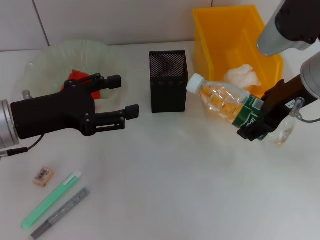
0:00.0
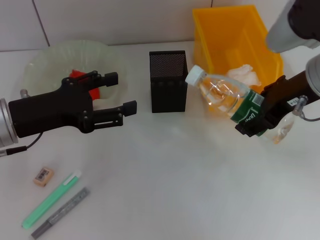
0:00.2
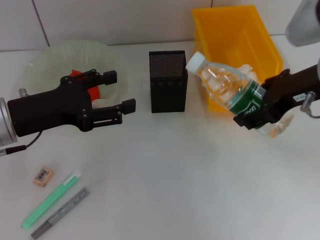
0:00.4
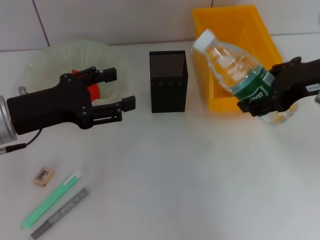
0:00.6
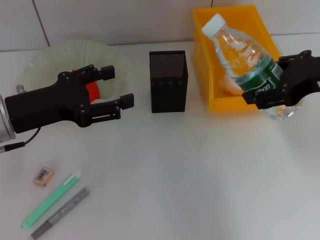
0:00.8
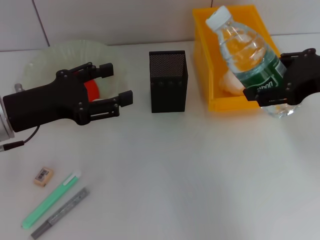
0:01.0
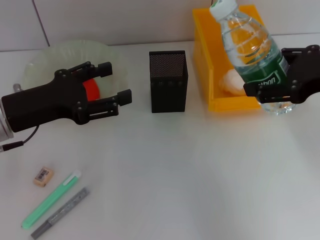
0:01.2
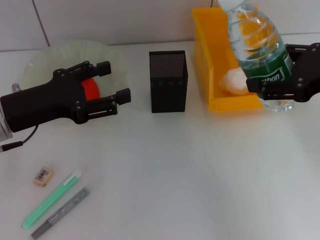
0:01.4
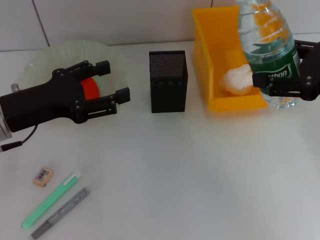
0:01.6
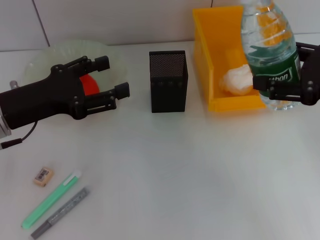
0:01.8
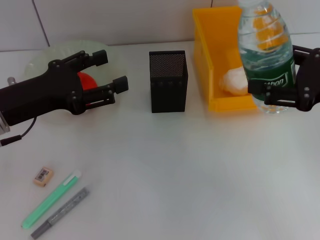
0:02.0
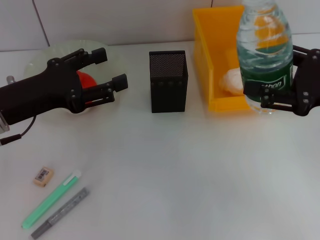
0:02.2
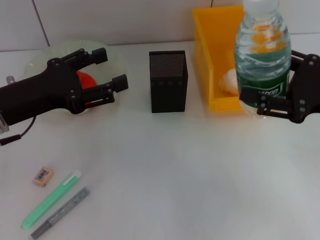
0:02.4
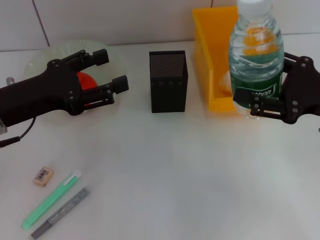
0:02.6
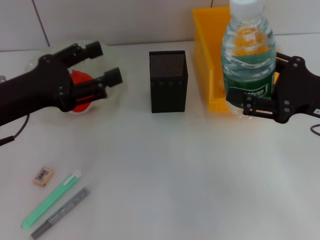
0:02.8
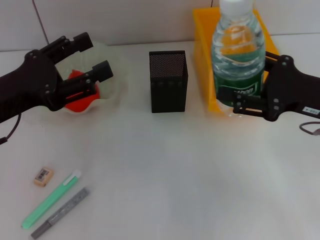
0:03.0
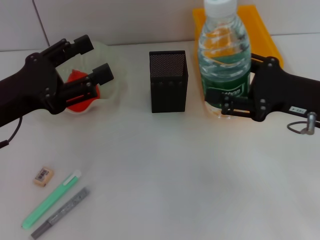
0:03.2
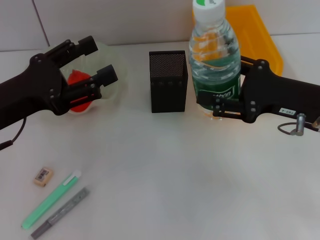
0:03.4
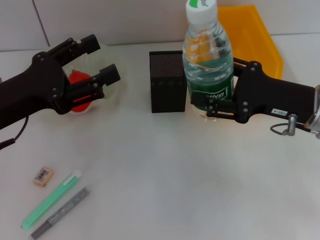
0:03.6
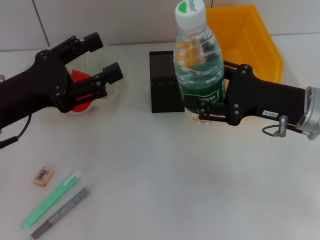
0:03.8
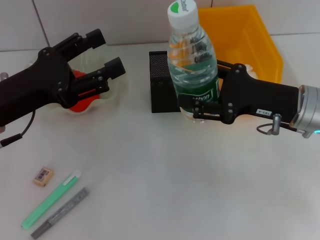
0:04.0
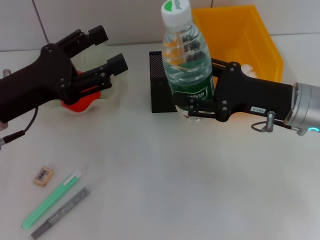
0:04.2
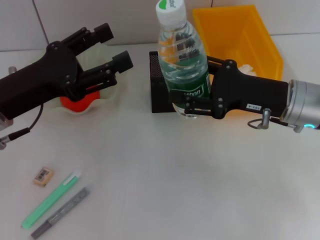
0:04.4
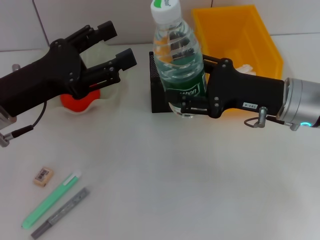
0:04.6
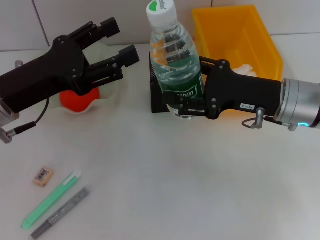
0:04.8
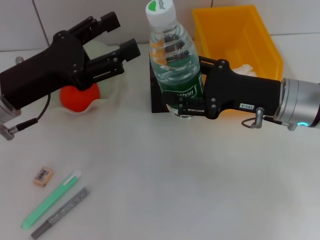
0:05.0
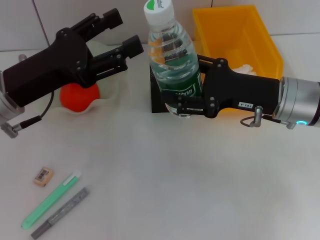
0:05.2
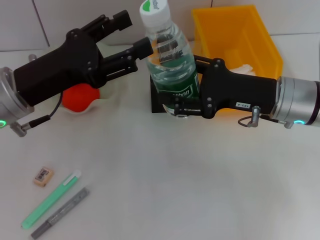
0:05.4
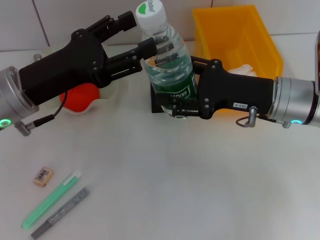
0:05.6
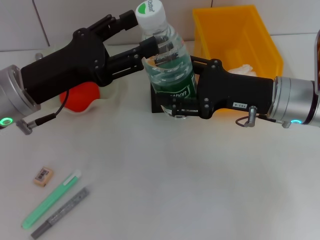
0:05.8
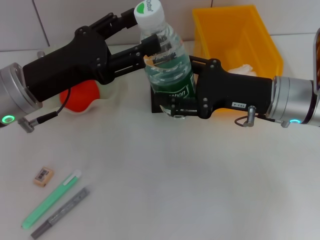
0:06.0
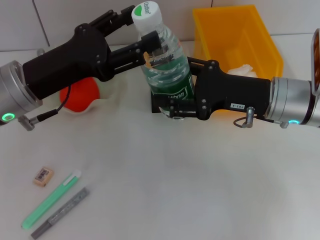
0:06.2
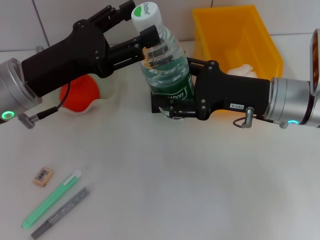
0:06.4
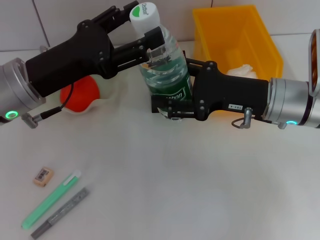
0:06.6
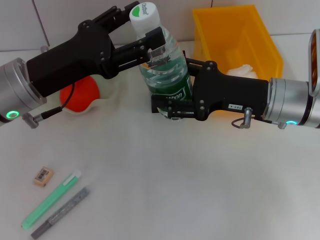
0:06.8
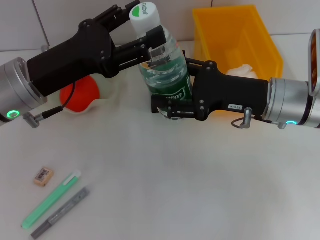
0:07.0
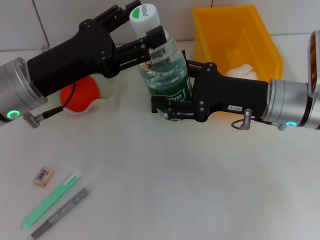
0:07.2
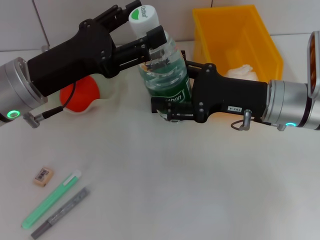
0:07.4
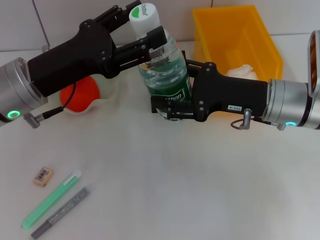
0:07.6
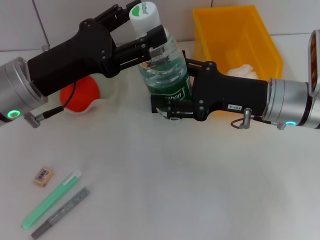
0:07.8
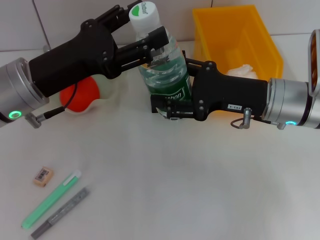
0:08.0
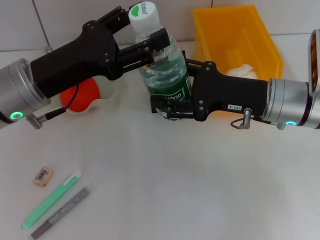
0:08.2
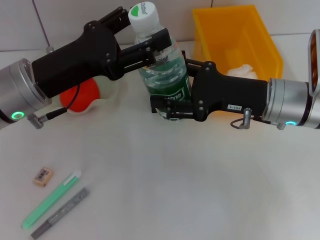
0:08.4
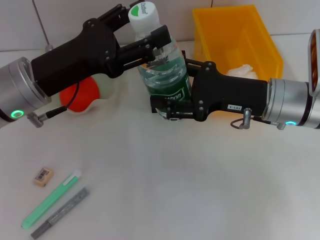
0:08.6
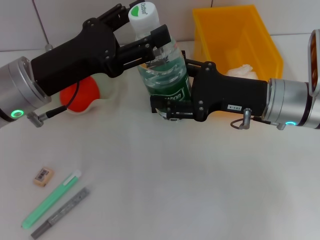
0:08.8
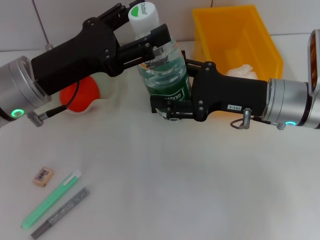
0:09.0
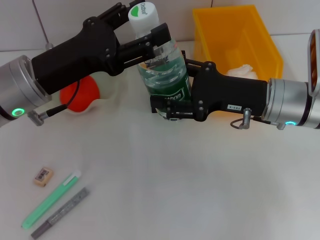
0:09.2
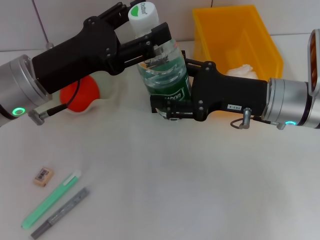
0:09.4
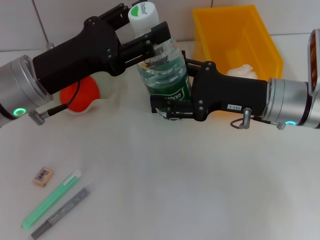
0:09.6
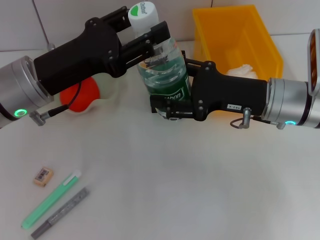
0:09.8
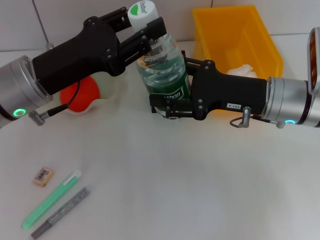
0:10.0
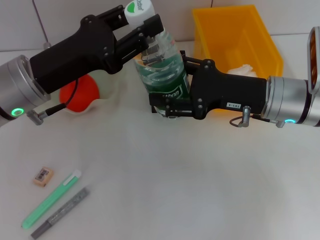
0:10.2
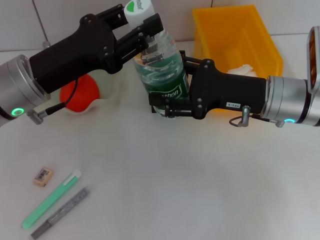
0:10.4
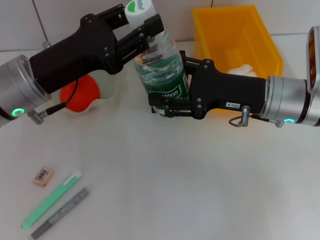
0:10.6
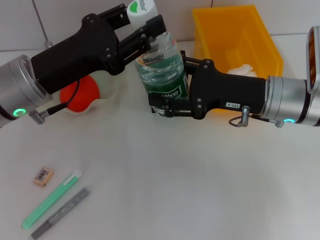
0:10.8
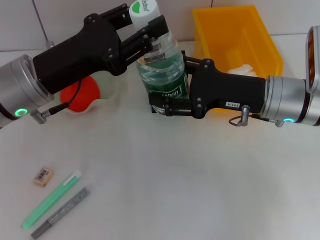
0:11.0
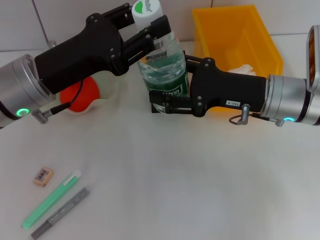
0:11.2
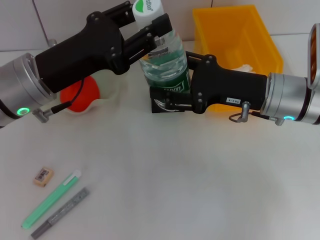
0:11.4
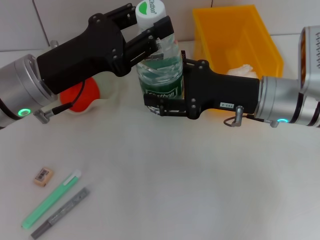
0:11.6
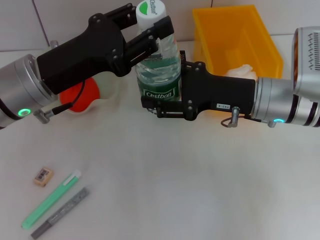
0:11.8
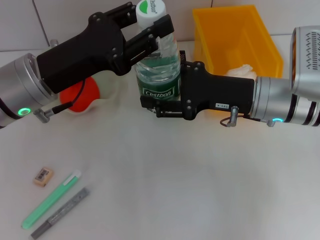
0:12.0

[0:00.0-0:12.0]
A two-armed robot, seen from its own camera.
0:00.0 to 0:01.6: The right gripper travels to the right and backward by some 10 cm.
0:01.6 to 0:03.0: The right gripper heads downward, covering some 5 cm.
0:03.0 to 0:04.4: The right gripper travels to the left by roughly 5 cm.
0:04.4 to 0:06.0: There are only small adjustments of the grippers.
0:06.0 to 0:09.0: Neither gripper changes place.
0:09.0 to 0:10.4: The left gripper closes its fingers.
0:10.4 to 0:12.0: Both grippers stay about where they are.

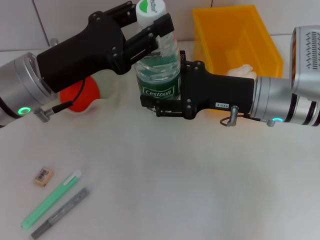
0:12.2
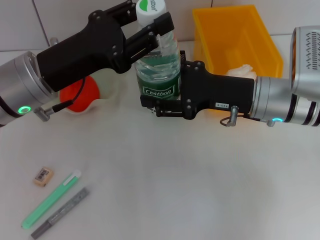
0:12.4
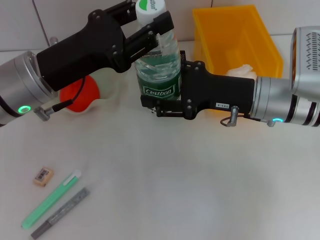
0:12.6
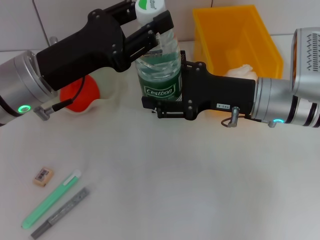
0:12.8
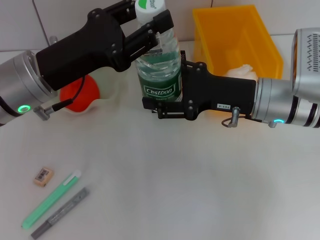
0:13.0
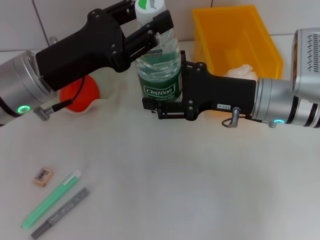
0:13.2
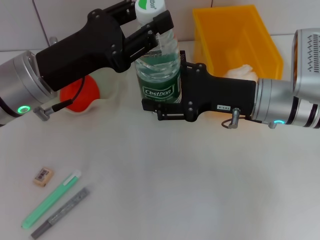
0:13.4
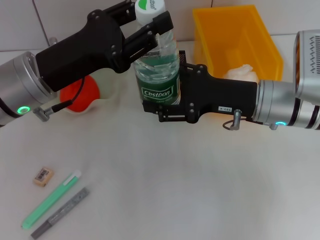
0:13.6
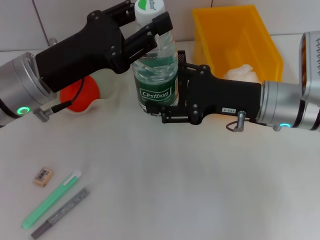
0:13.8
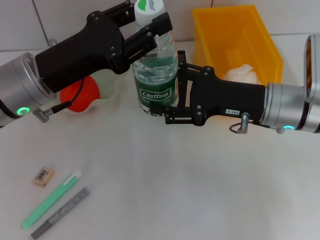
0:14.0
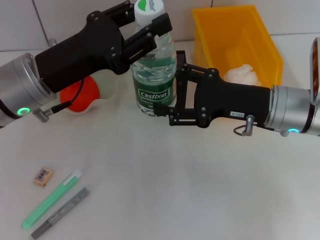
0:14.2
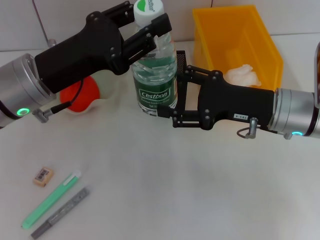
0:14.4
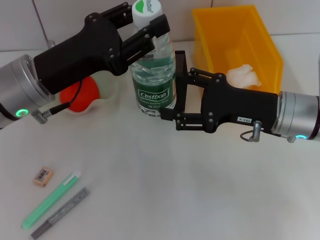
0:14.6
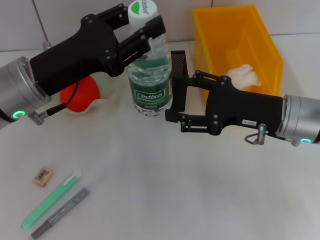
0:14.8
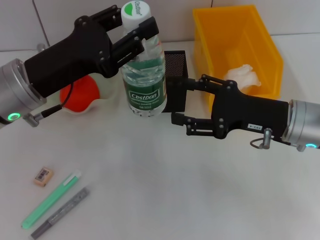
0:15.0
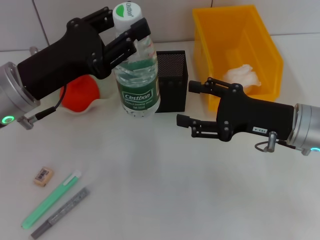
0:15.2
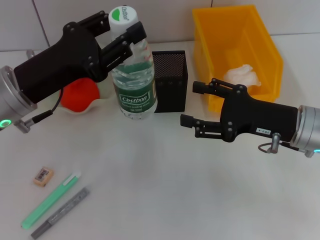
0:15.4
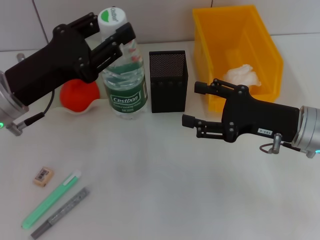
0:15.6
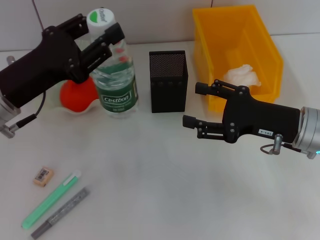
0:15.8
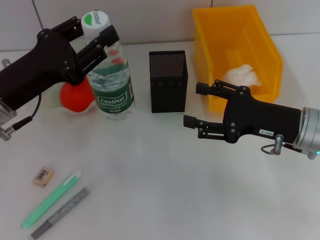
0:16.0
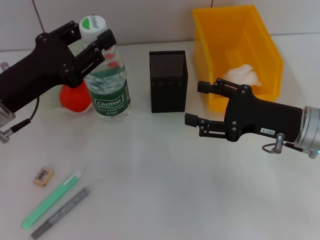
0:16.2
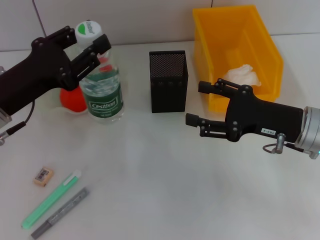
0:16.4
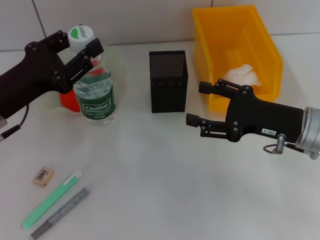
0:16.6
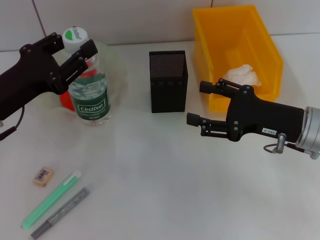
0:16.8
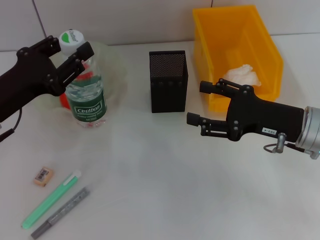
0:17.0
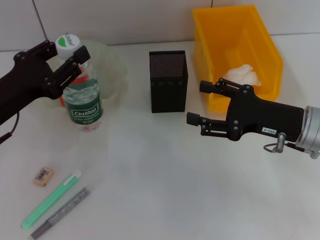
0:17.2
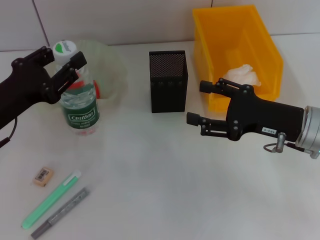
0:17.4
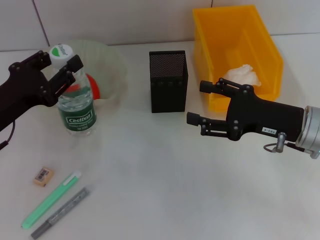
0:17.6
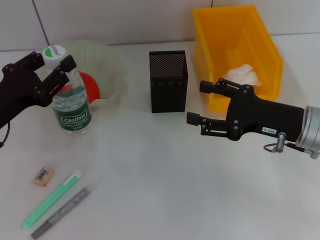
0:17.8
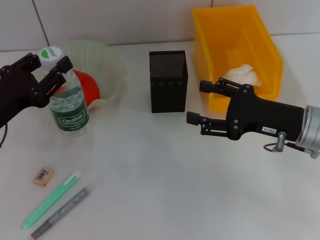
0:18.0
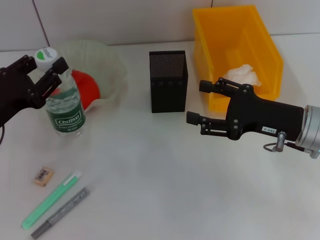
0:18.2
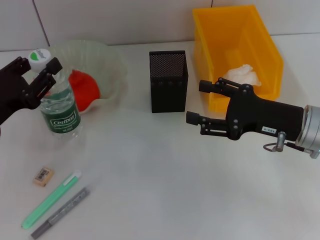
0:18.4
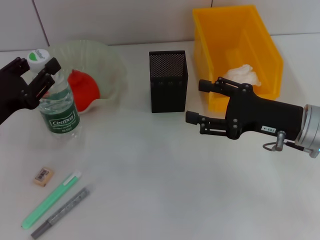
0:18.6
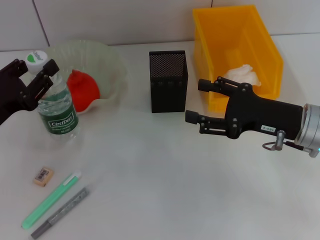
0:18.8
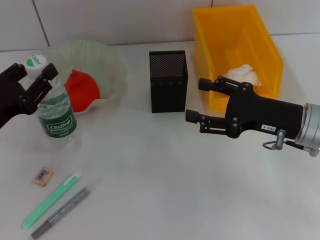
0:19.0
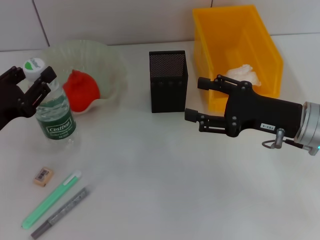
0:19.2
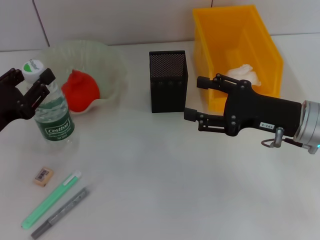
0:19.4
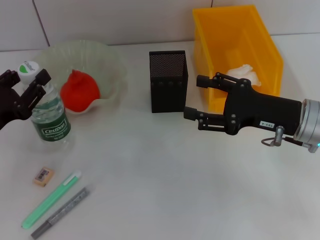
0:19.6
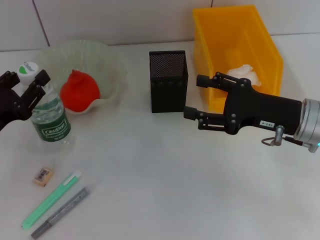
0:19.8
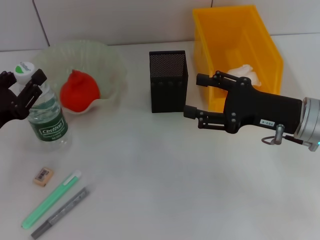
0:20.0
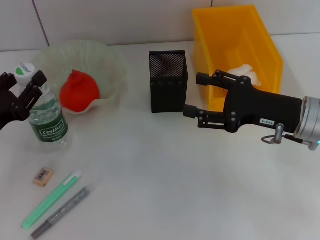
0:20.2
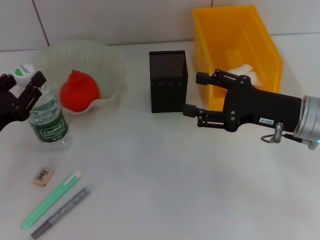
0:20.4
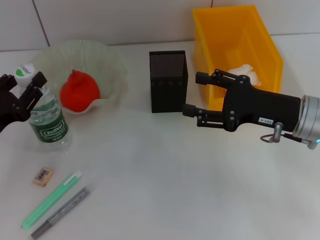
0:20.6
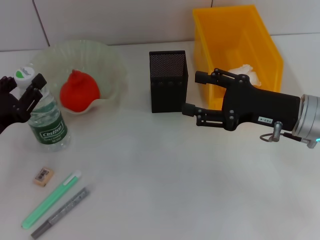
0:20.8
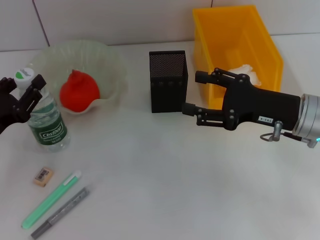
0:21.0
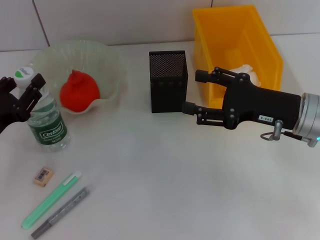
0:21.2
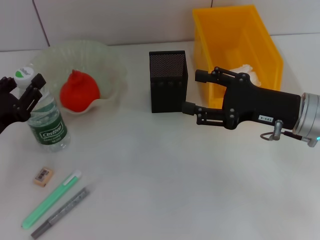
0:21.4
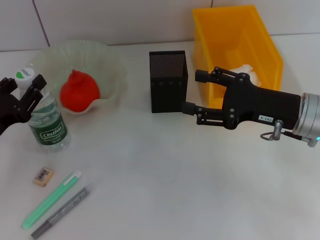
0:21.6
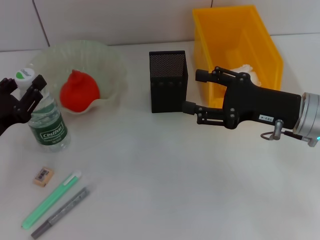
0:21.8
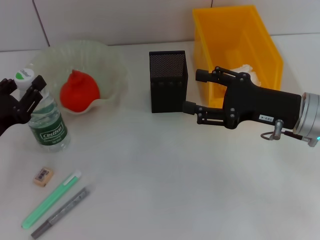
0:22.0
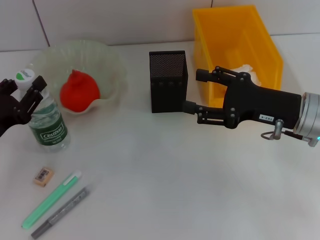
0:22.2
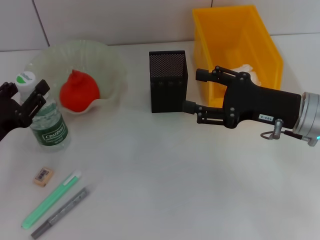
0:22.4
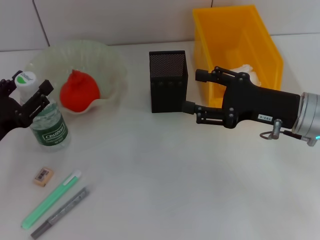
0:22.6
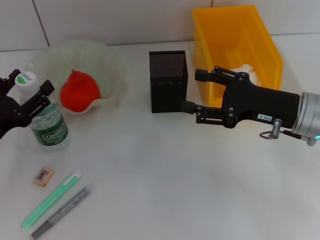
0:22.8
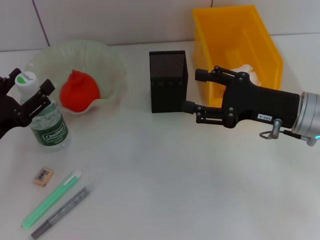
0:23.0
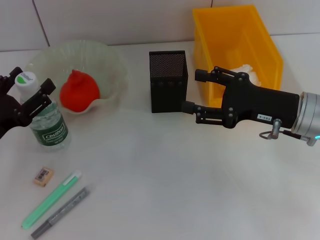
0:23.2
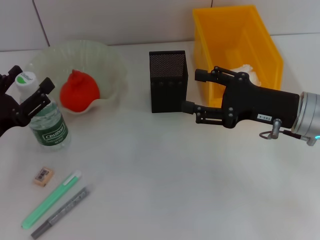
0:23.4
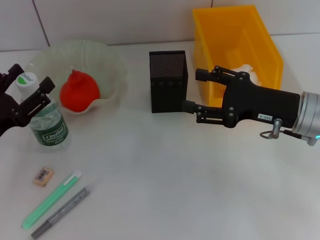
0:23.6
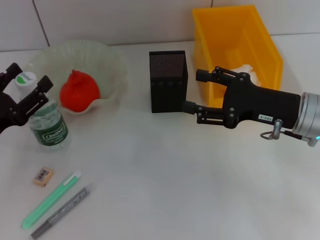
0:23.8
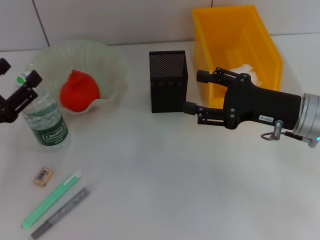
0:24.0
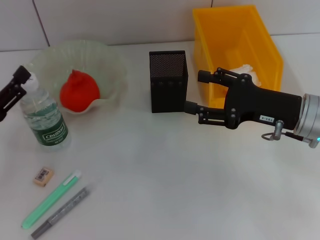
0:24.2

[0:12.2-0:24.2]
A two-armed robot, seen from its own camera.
Step, 0:14.2 to 0:23.4: Place the water bottle on the table with the left hand.
0:12.2 to 0:13.8: Both grippers stay put.
0:13.8 to 0:15.2: The right gripper changes place by roughly 5 cm.
0:15.2 to 0:16.6: The left gripper changes place by about 5 cm.
0:16.6 to 0:18.2: There are only small adjustments of the grippers.
0:18.2 to 0:19.8: There are only small adjustments of the grippers.
0:19.8 to 0:21.2: Both grippers stay about where they are.
0:21.2 to 0:22.6: The two grippers keep their place.
0:22.6 to 0:24.2: The left gripper opens its fingers.
